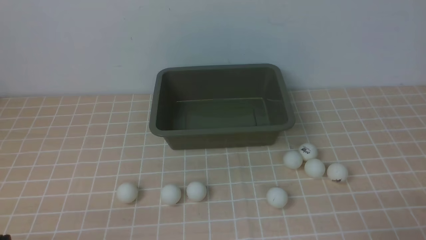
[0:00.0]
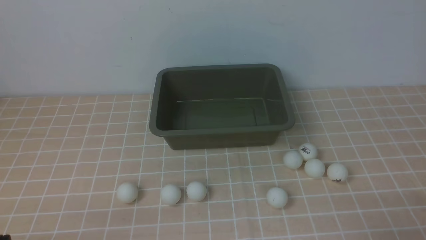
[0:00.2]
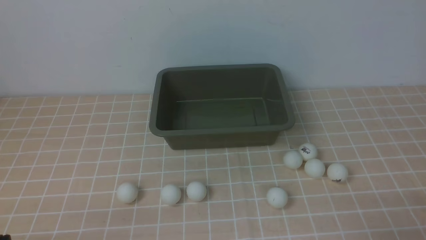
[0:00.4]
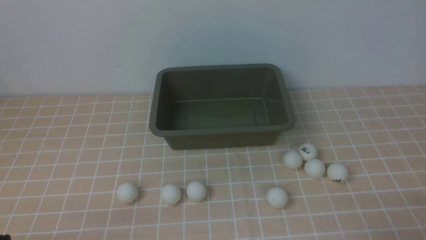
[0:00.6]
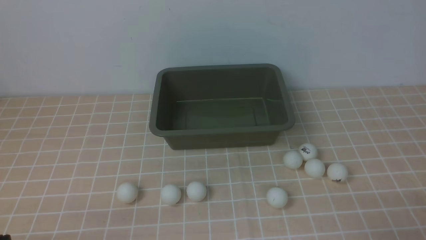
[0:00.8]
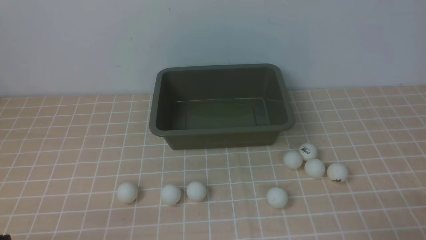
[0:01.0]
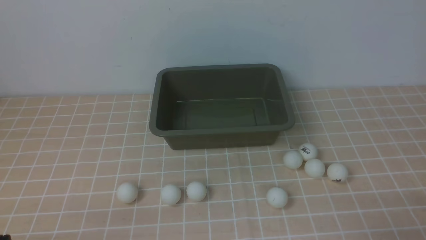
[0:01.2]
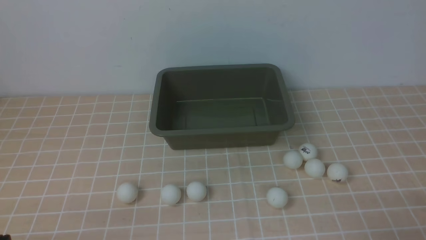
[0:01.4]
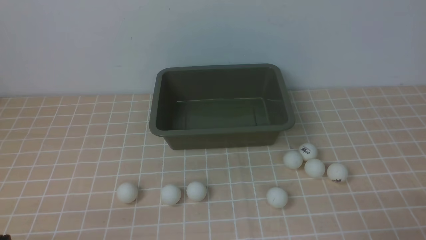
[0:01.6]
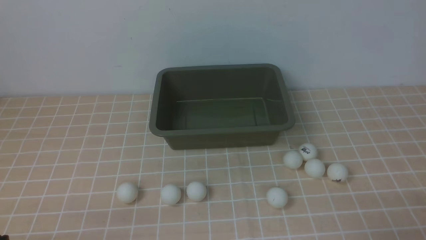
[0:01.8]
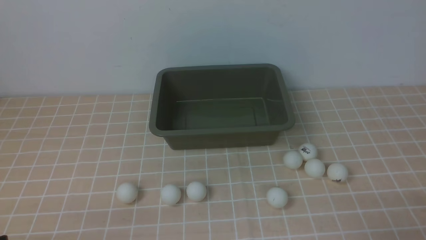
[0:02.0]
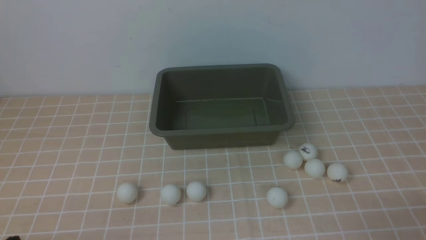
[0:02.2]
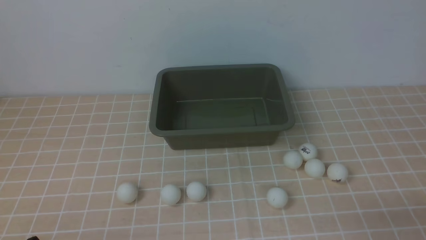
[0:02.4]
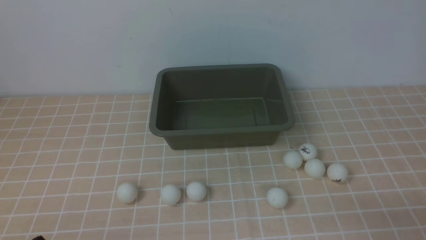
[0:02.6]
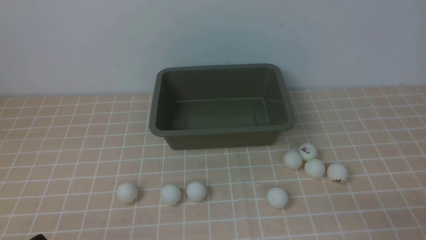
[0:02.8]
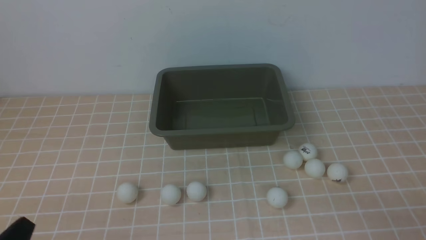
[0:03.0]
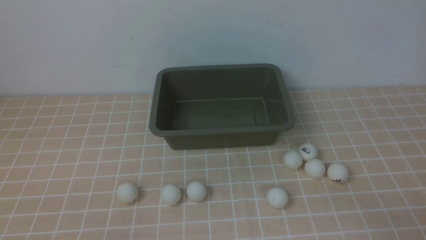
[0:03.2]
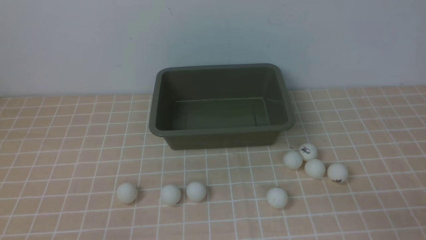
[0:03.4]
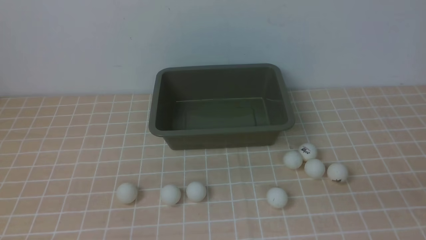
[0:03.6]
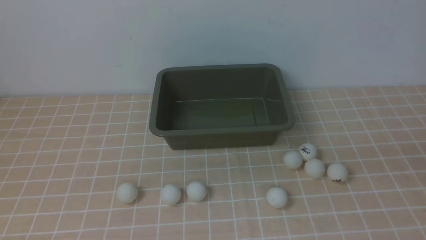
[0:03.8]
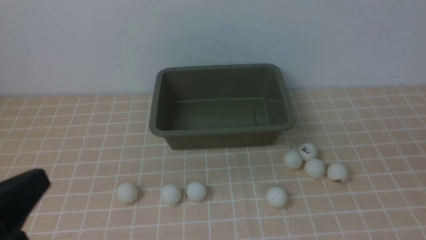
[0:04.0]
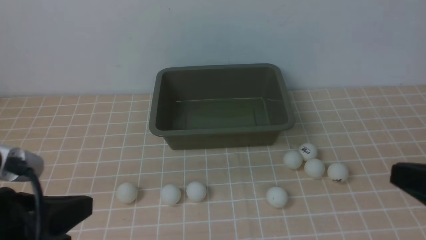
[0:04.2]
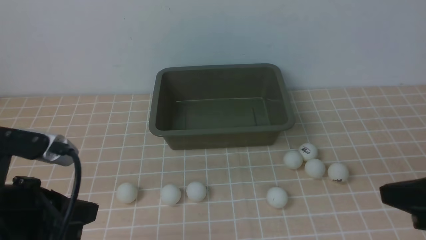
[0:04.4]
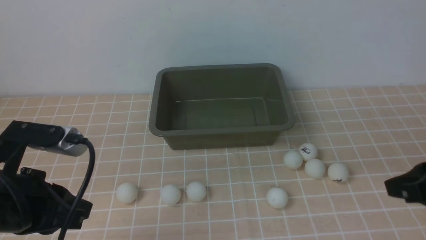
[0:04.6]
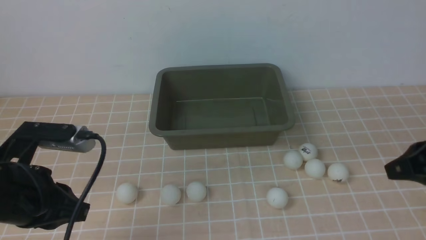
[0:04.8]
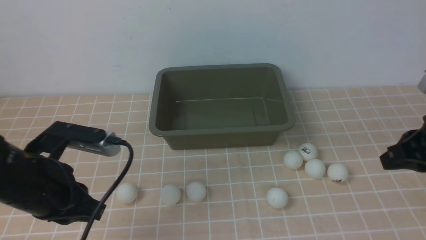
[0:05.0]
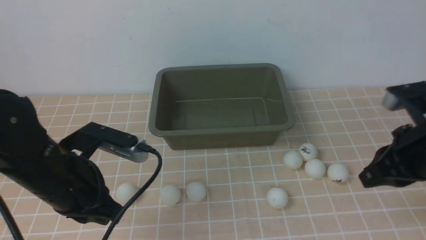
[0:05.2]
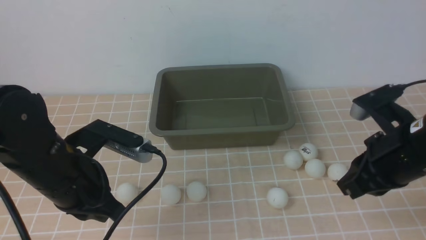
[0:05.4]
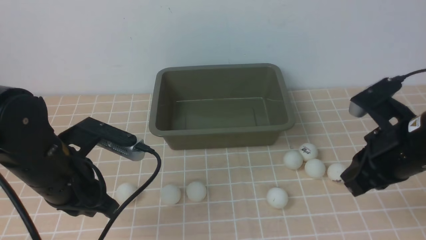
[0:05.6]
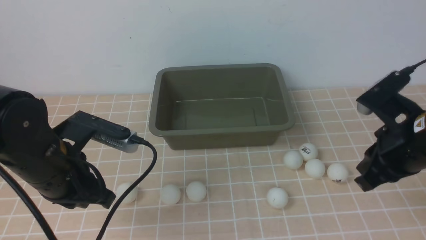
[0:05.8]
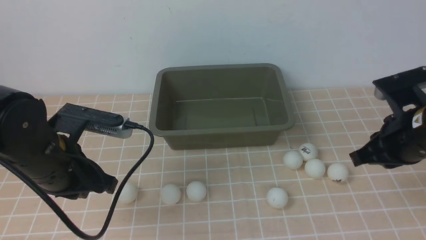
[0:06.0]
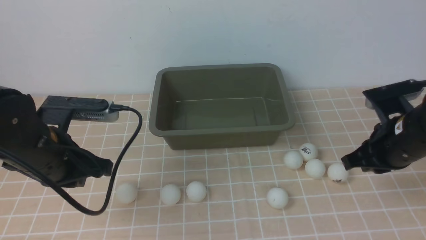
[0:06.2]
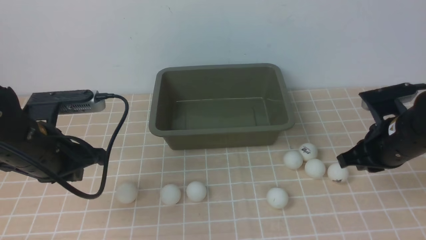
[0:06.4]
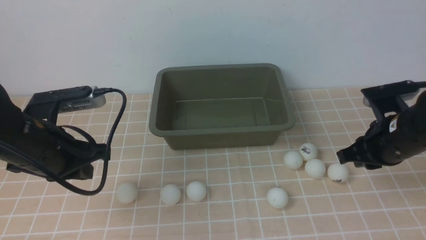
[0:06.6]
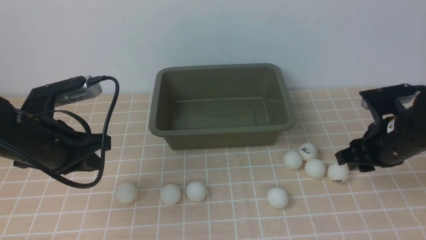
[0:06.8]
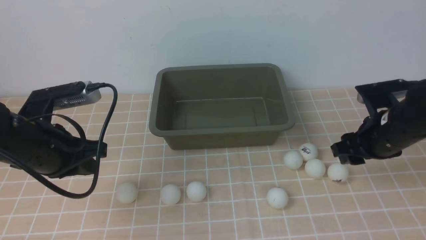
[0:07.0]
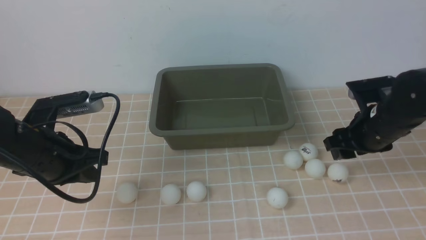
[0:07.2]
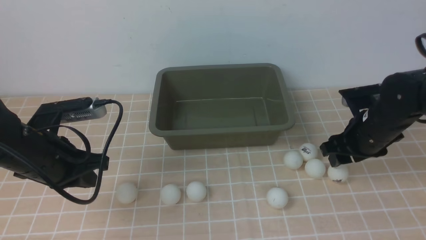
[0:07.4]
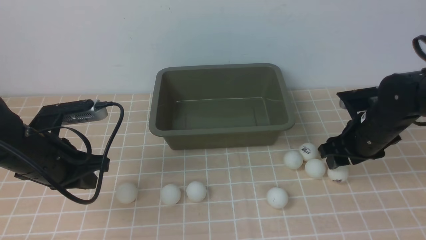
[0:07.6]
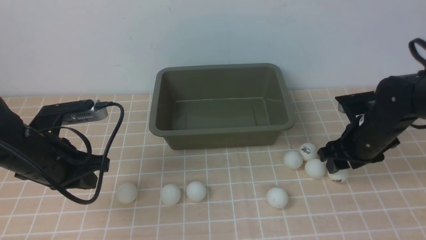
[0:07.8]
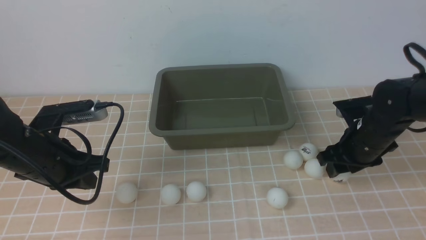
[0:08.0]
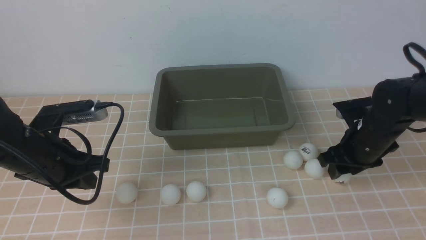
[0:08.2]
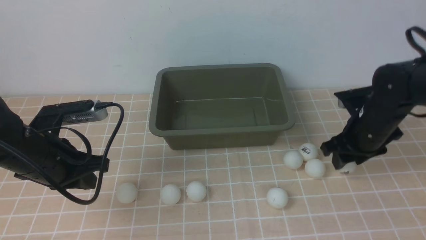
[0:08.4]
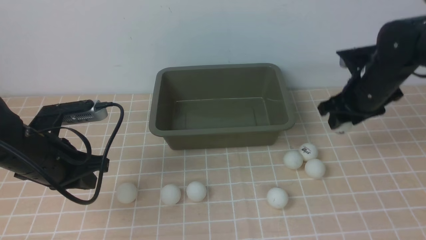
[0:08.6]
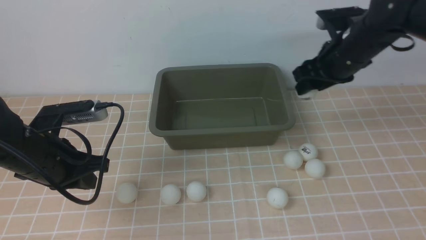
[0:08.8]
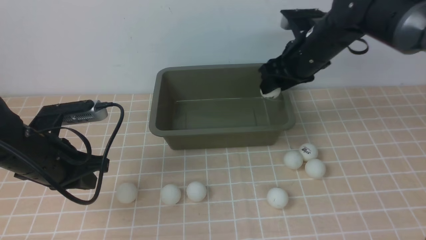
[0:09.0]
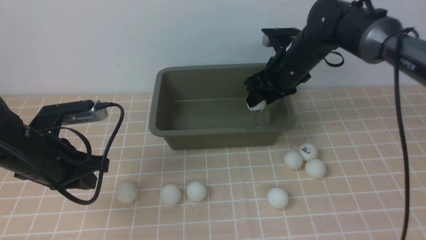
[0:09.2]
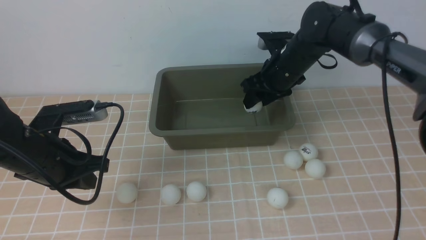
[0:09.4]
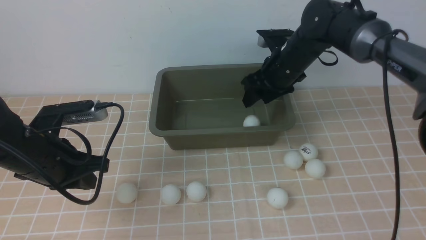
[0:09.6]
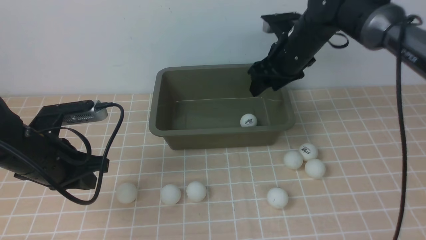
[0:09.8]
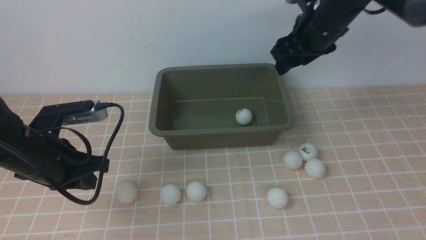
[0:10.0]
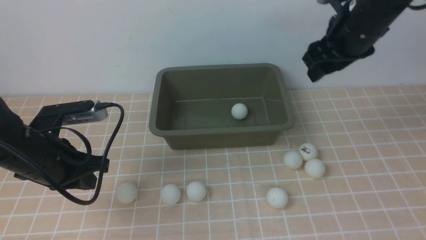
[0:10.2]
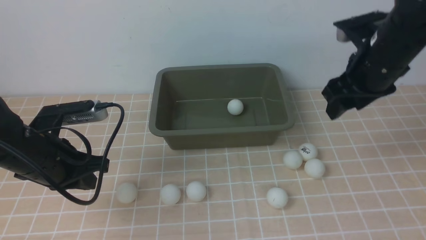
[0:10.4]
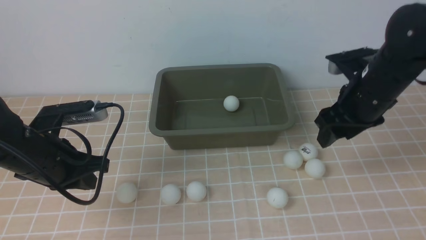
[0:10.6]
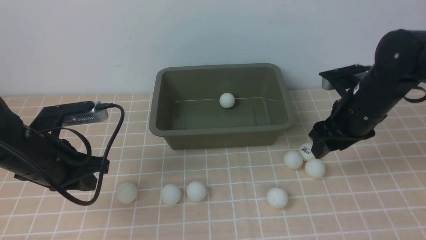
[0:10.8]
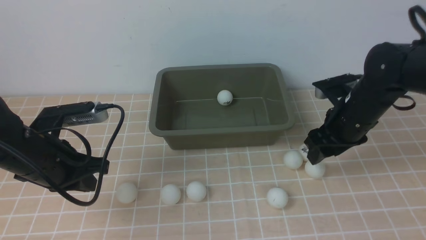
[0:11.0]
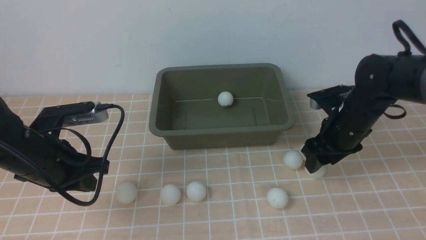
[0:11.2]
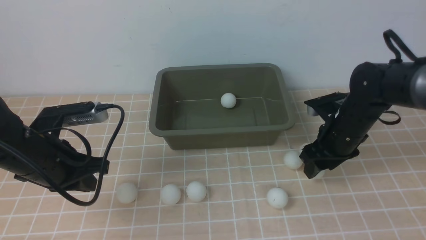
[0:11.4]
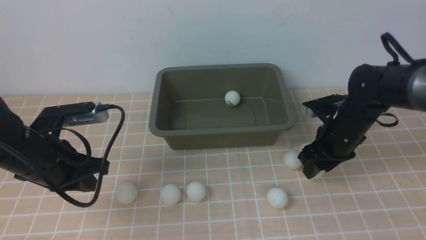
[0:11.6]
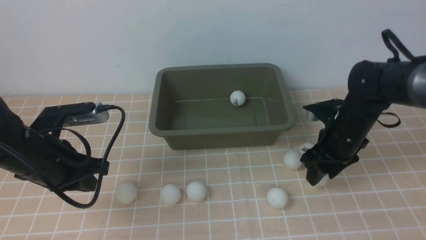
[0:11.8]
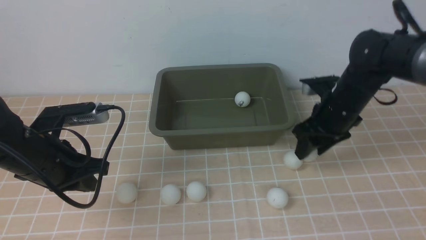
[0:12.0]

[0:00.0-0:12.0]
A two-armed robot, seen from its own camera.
Step, 0:00.0 to 0:08.4: use the right arm to clamp the table tennis ball closest to it.
Step, 0:08.6 to 0:09.8: use the right arm to put the table tennis ball into the box.
0:03.0 to 0:04.4: The two grippers go roughly 15 cm upward and forward.
0:04.4 to 0:06.0: Both grippers move forward, some 10 cm.
0:06.0 to 0:07.6: The right gripper moves forward and downward, some 10 cm, and opens its fingers.
0:07.6 to 0:09.0: The right gripper heads upward, forward and to the left, covering some 15 cm.
0:09.0 to 0:10.4: The right gripper moves backward, roughly 5 cm.
0:10.4 to 0:12.0: The right gripper moves downward, approximately 10 cm.

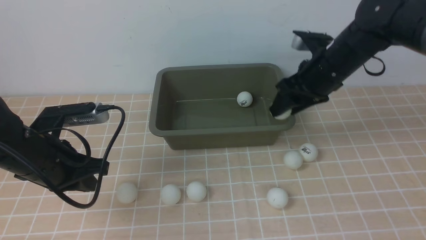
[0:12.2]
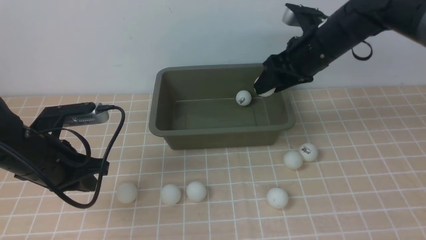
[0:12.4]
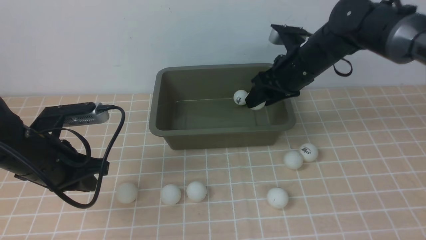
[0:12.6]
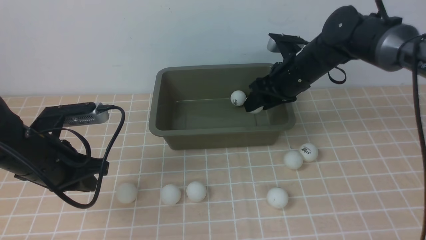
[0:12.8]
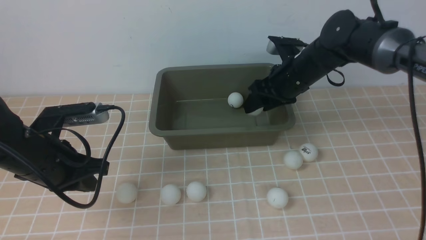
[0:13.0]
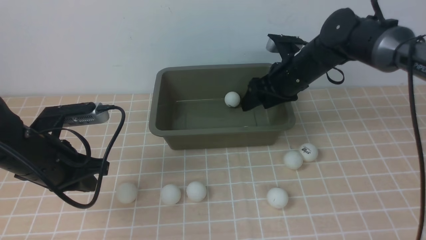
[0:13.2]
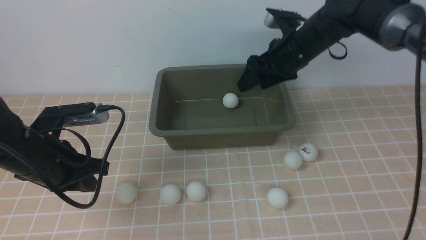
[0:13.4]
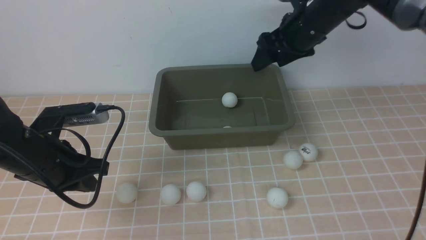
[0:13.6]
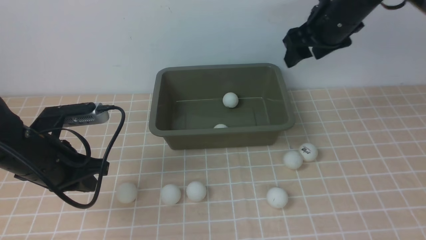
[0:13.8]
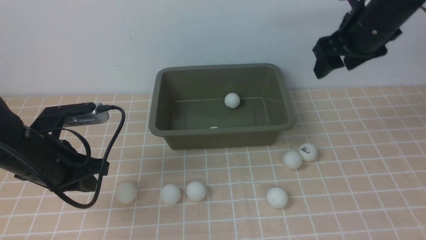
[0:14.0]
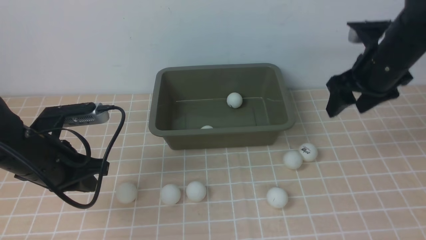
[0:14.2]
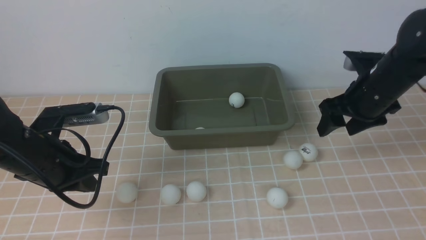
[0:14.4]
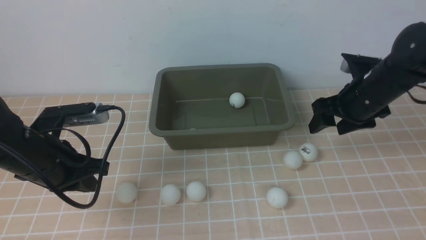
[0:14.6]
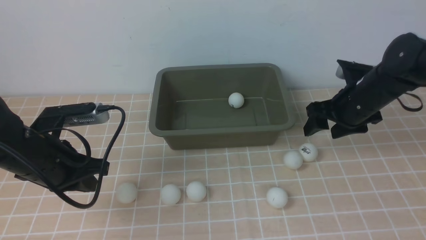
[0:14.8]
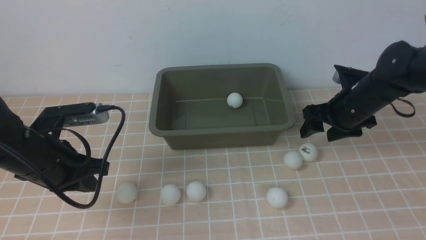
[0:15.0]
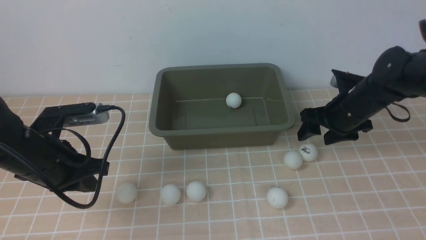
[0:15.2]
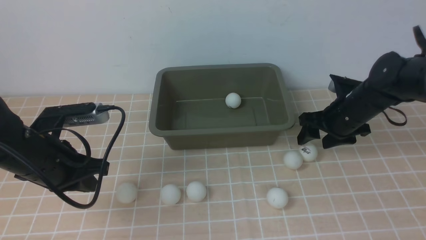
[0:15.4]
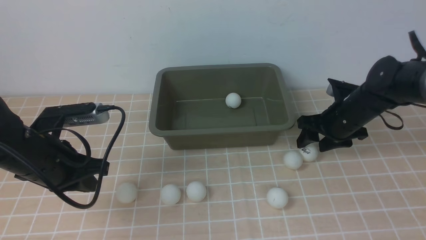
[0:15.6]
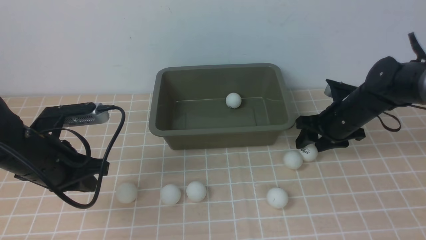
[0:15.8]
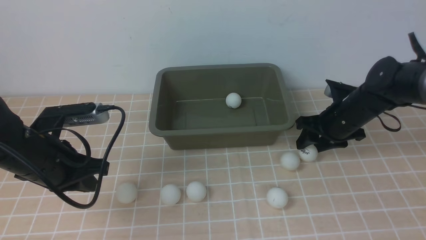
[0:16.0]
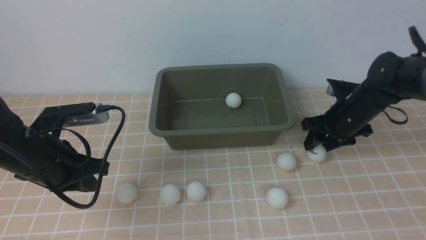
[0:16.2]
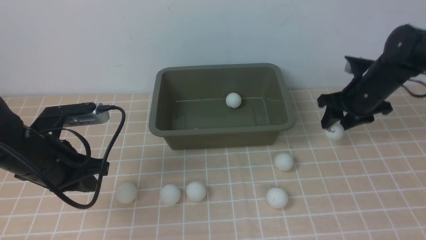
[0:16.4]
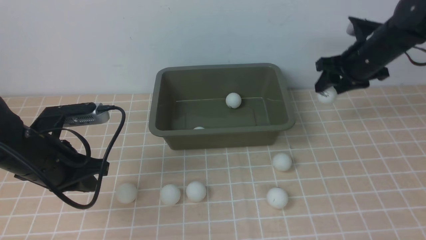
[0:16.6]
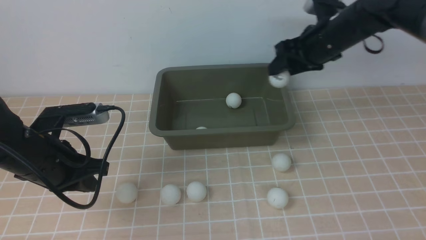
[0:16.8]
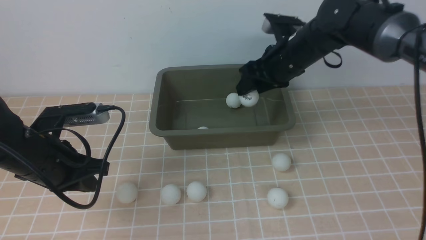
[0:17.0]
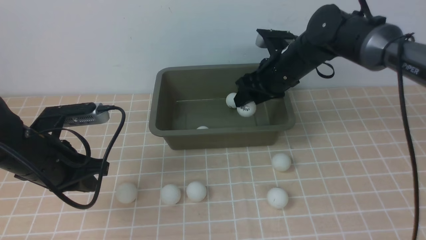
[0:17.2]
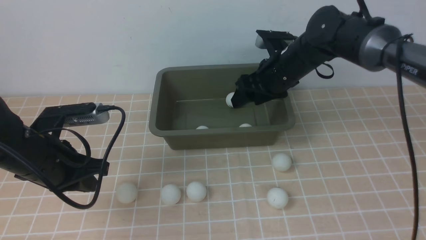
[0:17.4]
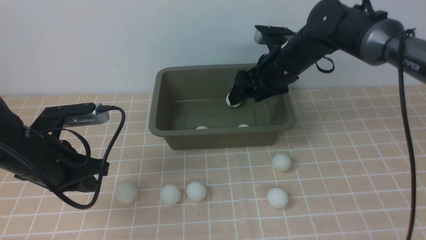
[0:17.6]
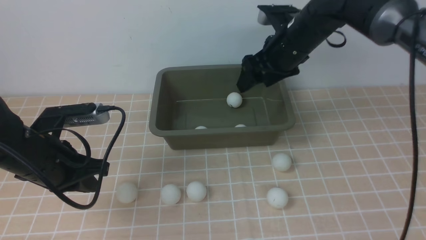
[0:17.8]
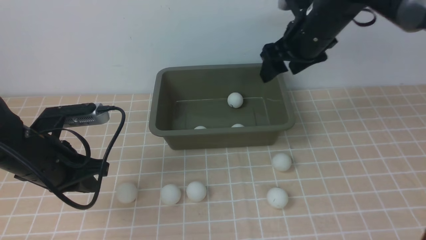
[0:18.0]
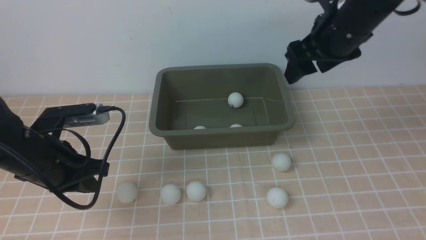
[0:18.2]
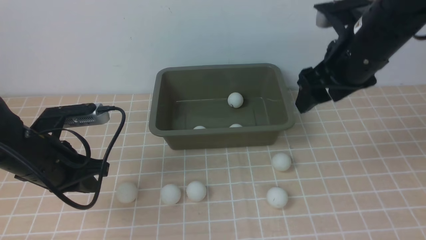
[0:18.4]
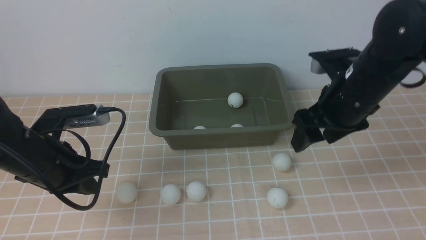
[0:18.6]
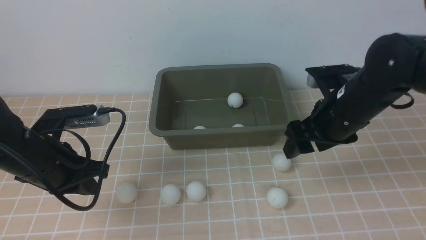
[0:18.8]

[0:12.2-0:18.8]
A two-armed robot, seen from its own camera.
Step, 0:12.4 to 0:13.4: use the right arm to put the table tennis ball into the box.
Step, 0:13.6 to 0:16.4: use the right arm to clamp the table tennis ball closest to it.
Step, 0:16.6 to 0:17.6: use the right arm to put the table tennis ball into the box.
0:12.2 to 0:13.8: The right gripper moves upward, about 10 cm.
0:13.8 to 0:15.4: The right gripper shifts some 15 cm downward.
0:15.4 to 0:17.2: The right gripper shifts roughly 15 cm to the left and upward.
0:17.2 to 0:18.8: The right gripper shifts about 15 cm backward and to the right.
